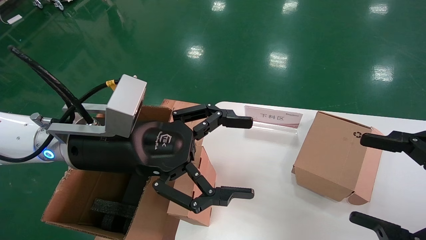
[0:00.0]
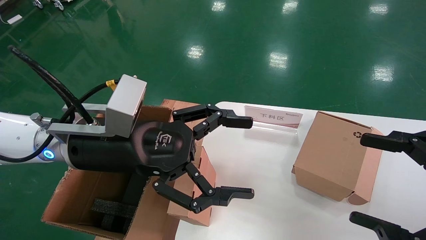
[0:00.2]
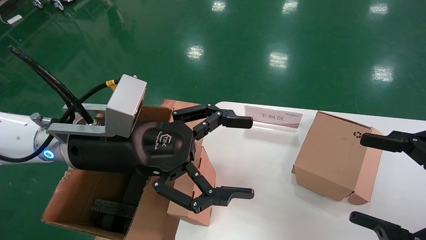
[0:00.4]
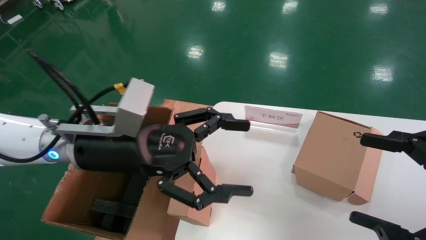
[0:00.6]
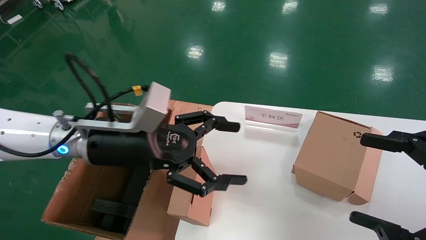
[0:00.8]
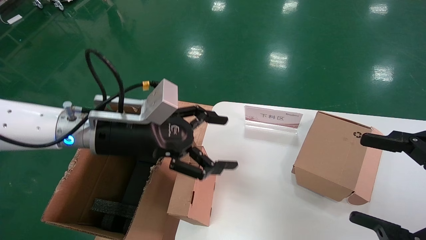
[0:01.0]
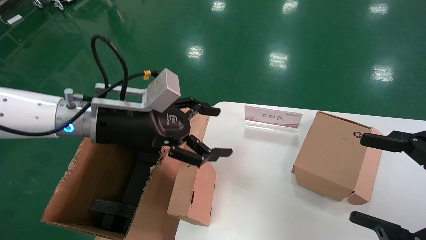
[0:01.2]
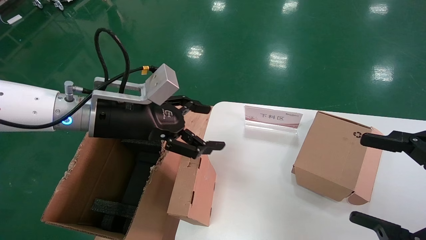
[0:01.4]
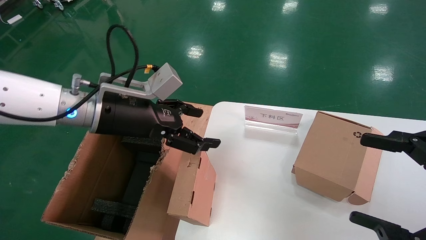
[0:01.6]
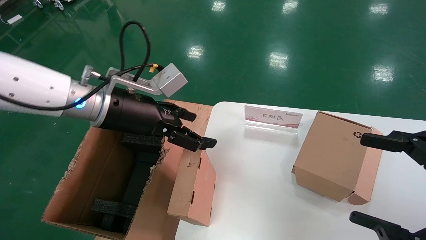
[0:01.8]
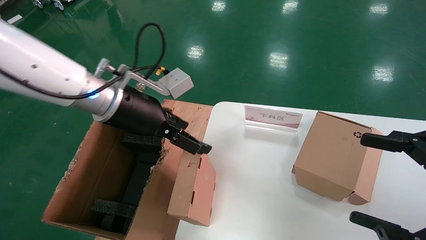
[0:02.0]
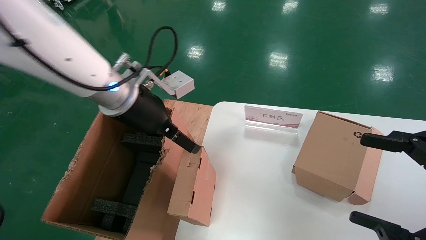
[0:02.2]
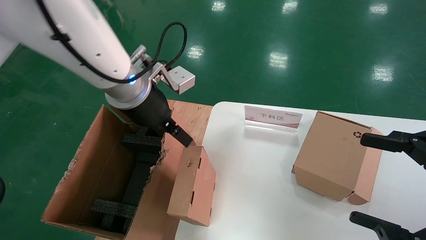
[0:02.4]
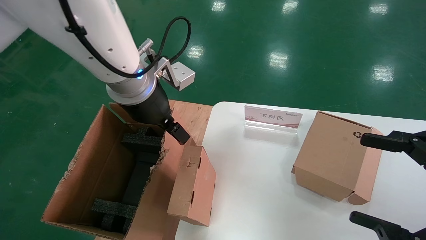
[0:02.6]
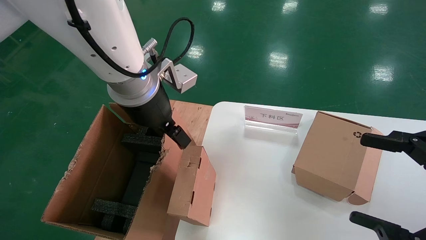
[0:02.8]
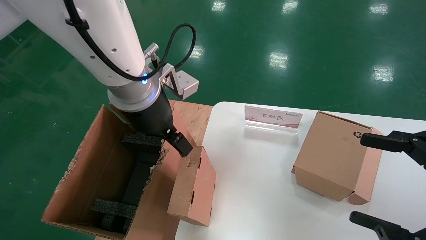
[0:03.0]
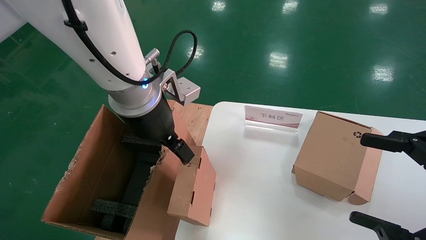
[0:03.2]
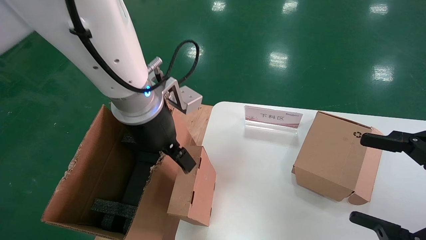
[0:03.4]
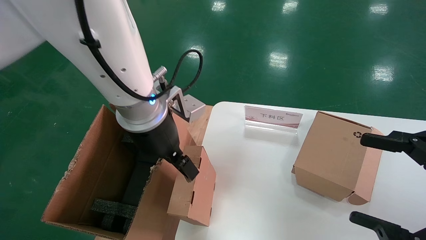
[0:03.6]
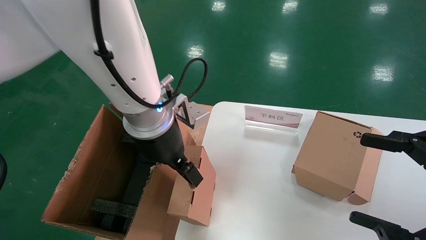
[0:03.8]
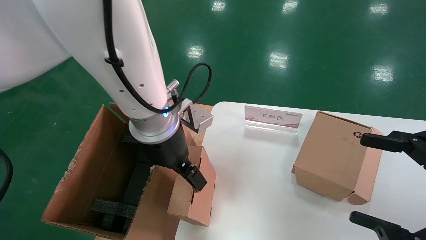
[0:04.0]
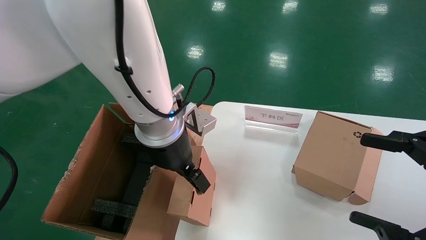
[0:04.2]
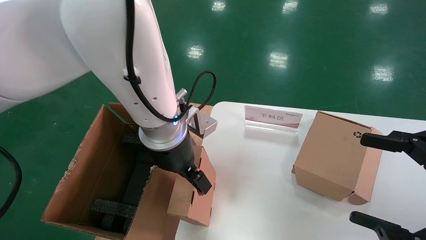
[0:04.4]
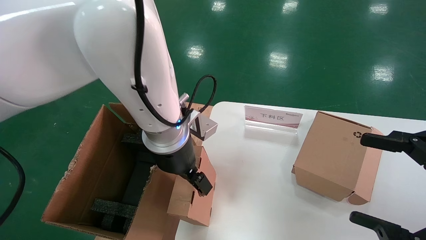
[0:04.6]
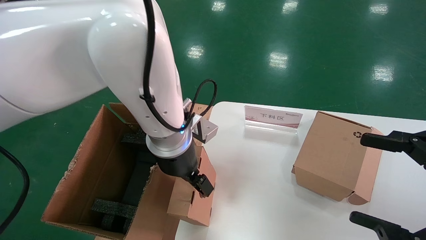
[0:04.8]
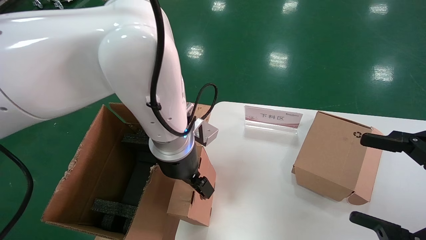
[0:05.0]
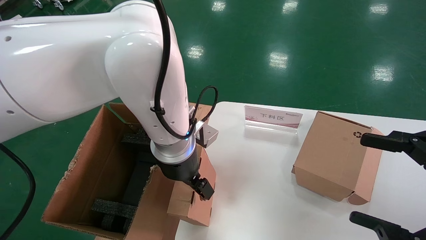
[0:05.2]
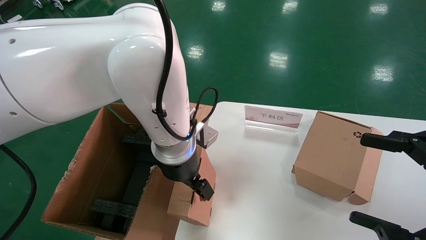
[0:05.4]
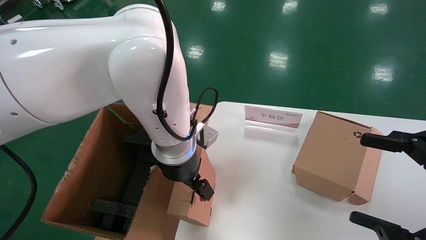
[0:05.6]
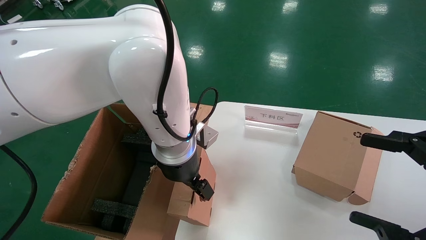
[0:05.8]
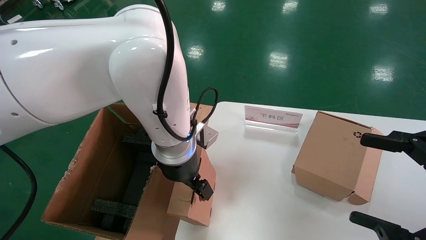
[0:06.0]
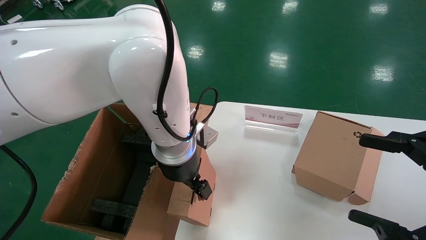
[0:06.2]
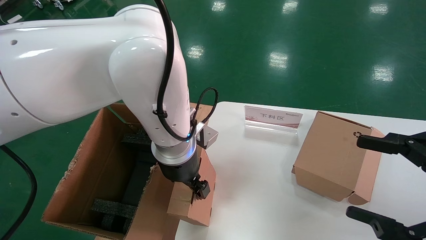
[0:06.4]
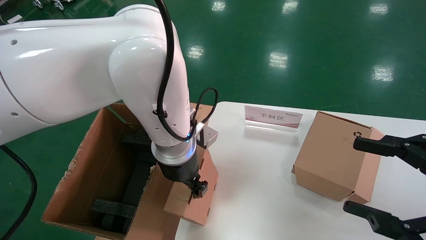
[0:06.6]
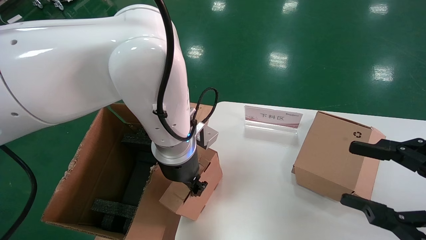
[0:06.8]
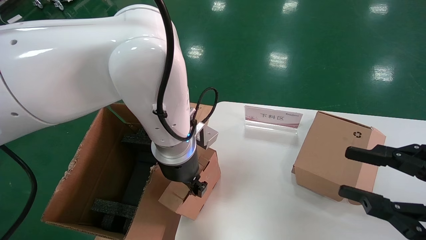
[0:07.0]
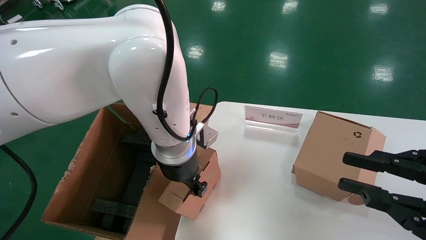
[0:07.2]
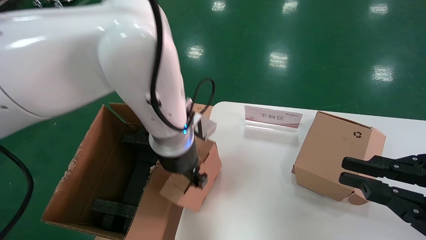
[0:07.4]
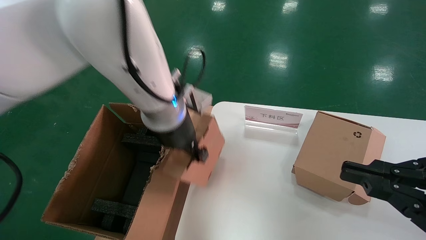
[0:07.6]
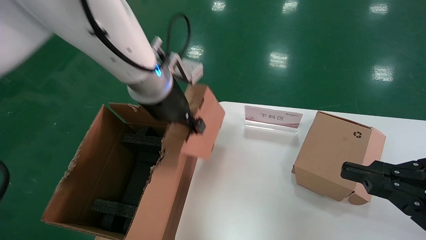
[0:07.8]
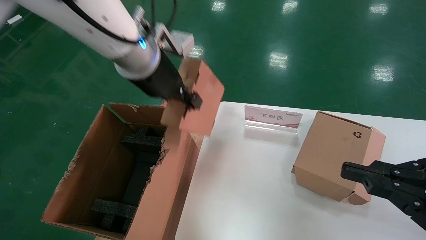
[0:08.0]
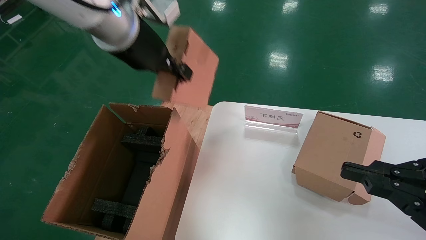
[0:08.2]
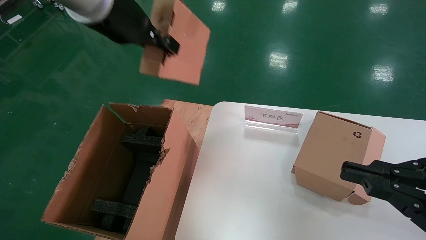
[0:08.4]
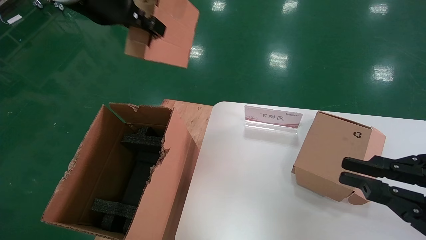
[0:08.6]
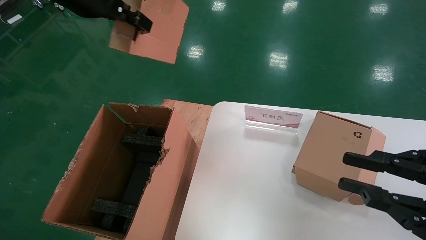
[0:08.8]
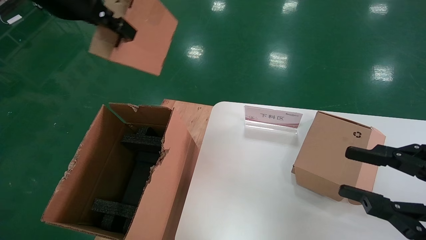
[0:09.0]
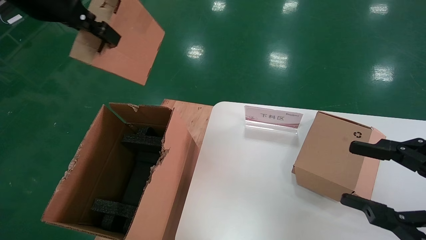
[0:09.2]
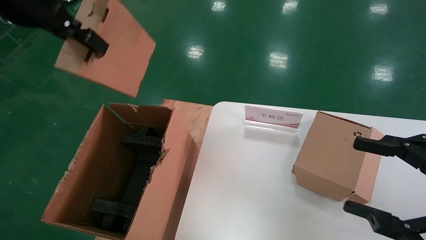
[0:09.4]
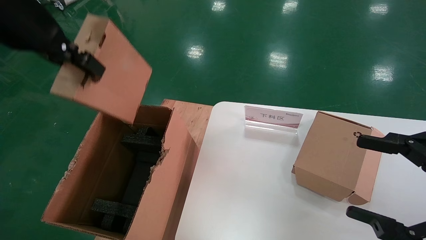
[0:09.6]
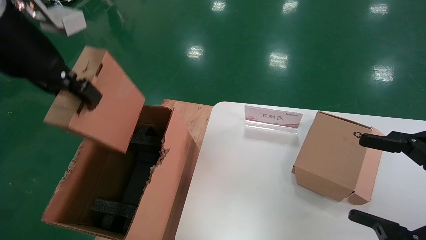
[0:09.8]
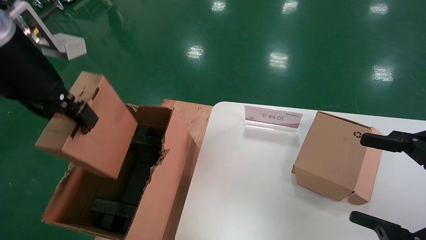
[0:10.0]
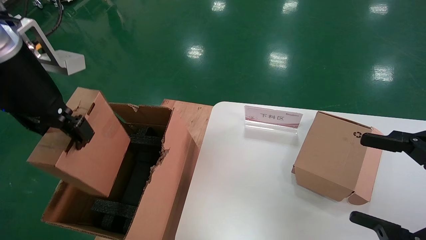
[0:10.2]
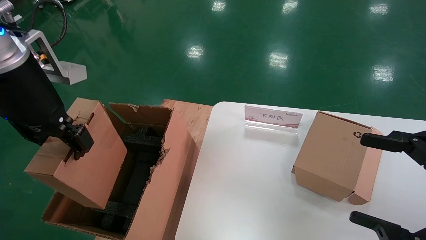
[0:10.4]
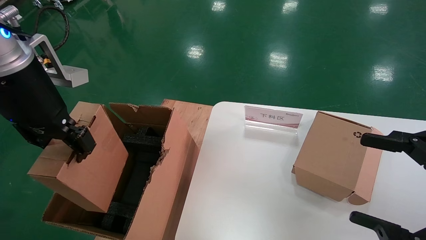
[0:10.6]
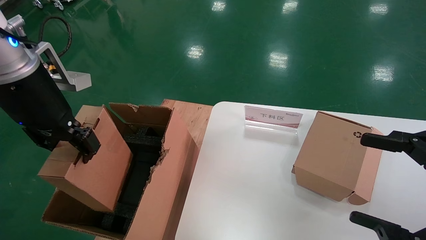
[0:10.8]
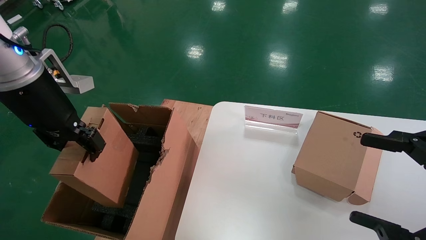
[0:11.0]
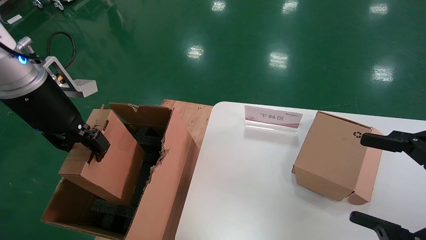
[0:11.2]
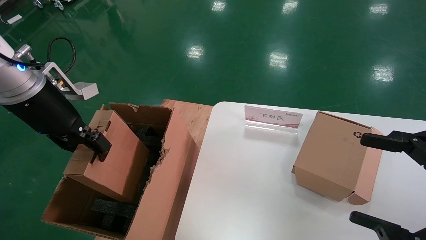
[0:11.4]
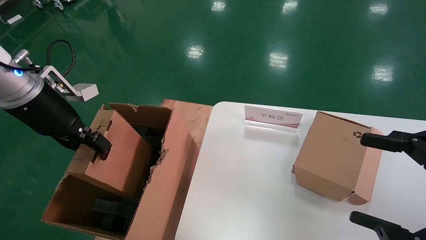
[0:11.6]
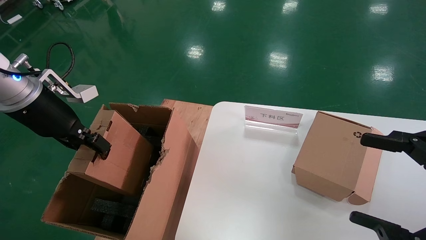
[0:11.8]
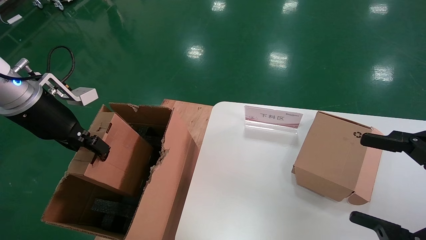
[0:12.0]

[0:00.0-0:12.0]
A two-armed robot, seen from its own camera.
Task of the whole recording: put the box on the table into the big box.
Step, 0:00.0 to 0:07.0: Grasp the paper box.
0:00.0 to 0:01.6: The left gripper goes roughly 5 cm forward.
0:01.6 to 0:03.0: The left gripper heads to the right, covering approximately 10 cm.
0:03.0 to 0:04.4: The left gripper goes about 5 cm downward.
0:06.0 to 0:07.6: The left gripper moves upward, some 5 cm, and closes up; the right gripper closes.
0:07.6 to 0:09.0: The left gripper goes some 25 cm upward and to the left.
0:09.0 to 0:10.4: The left gripper goes approximately 10 cm downward. Meanwhile the right gripper opens.
0:10.4 to 0:12.0: The left gripper goes approximately 15 cm to the left, downward and forward.

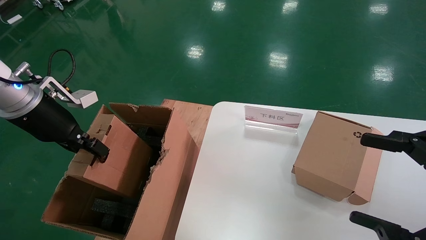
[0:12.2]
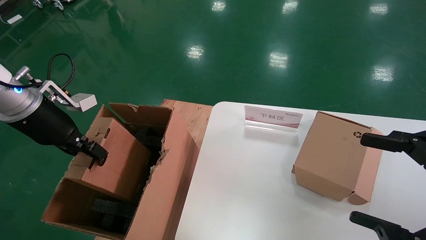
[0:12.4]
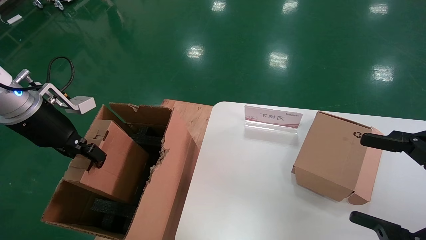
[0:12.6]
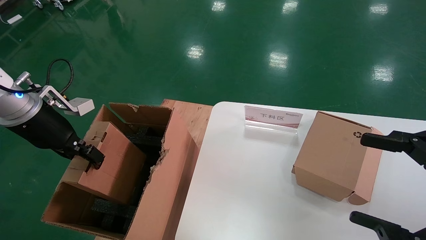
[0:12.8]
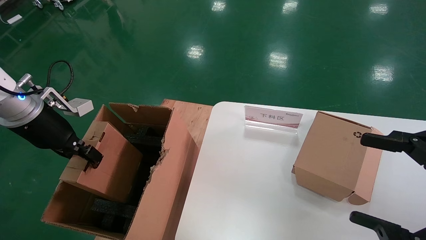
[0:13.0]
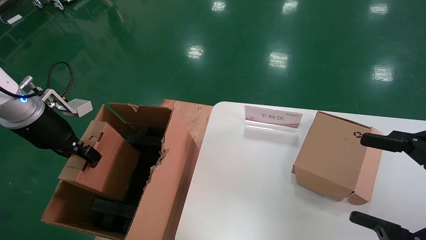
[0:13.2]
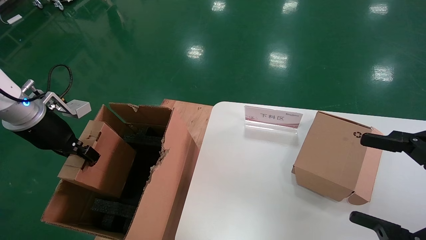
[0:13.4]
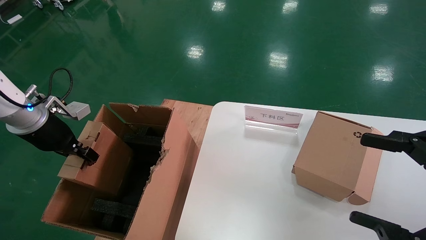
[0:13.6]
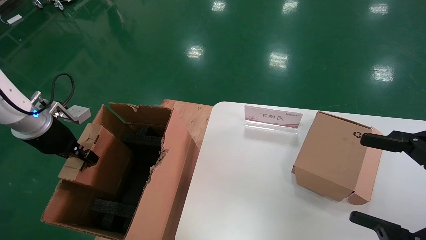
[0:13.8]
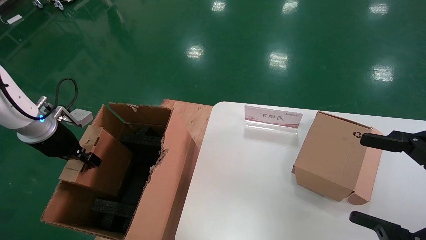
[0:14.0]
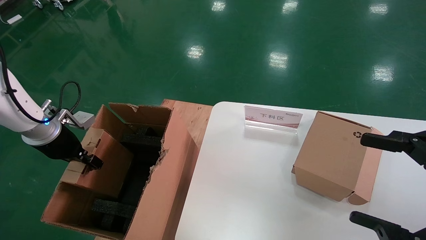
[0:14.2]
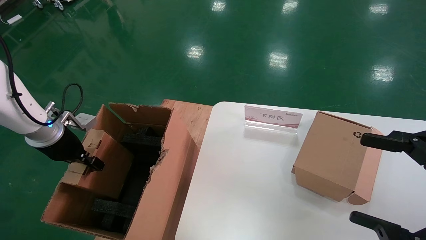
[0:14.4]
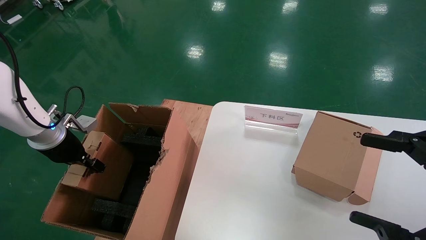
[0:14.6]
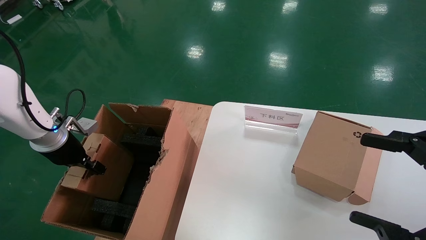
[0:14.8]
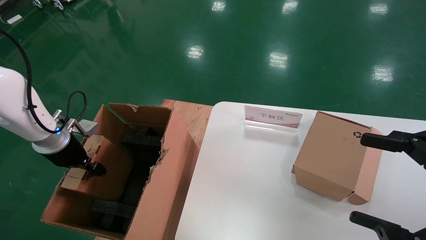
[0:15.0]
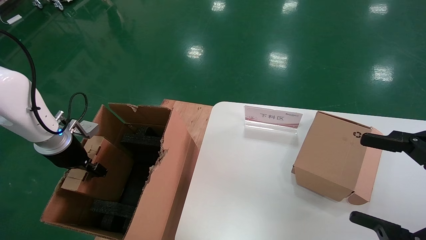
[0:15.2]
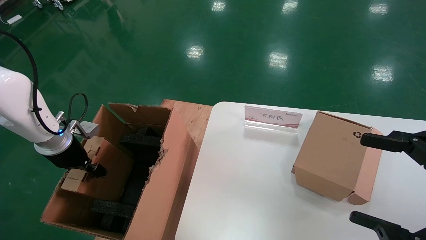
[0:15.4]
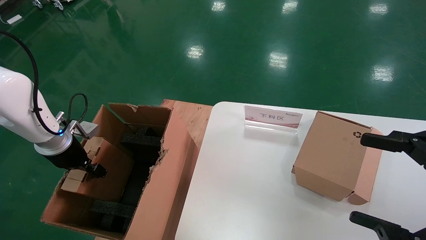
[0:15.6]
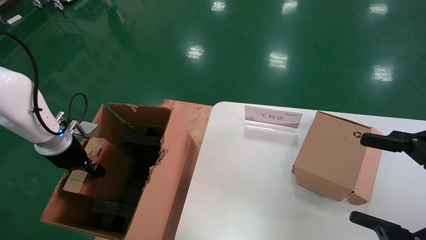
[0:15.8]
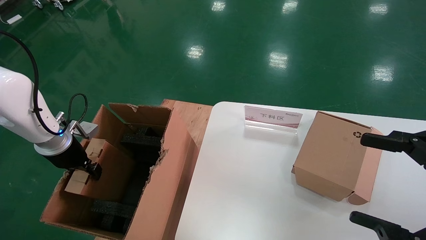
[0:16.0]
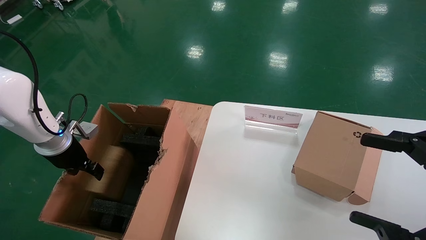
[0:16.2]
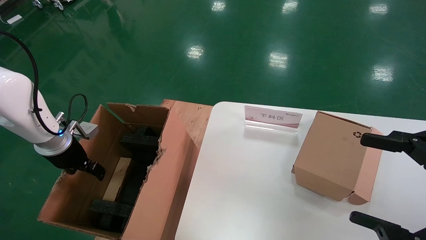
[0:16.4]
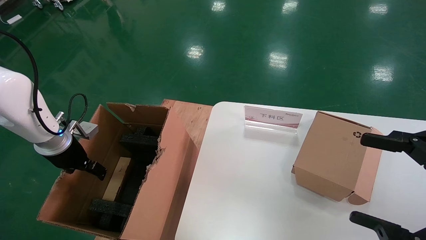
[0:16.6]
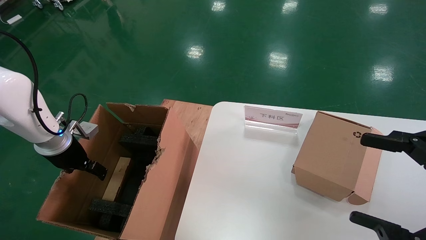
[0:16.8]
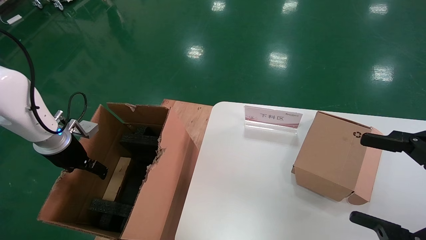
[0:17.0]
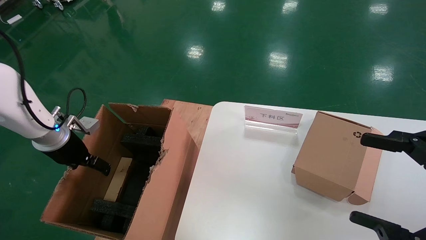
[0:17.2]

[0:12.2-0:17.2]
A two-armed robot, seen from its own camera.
Task of the whole recording: put the box on the table into the big box.
Step, 0:12.2 to 0:16.4: Place the paper box in the another big box.
0:12.2 to 0:13.8: The left gripper heads downward and to the left, covering roughly 10 cm.
0:13.8 to 0:15.6: The left gripper ends up approximately 5 cm from where it was.
0:15.6 to 0:17.2: The left gripper opens.
